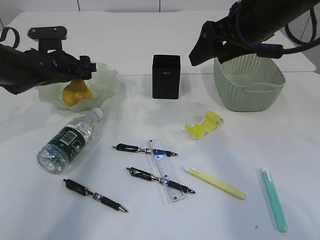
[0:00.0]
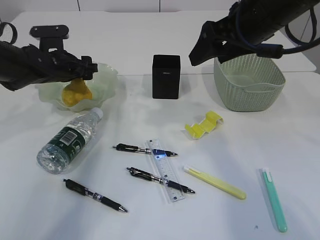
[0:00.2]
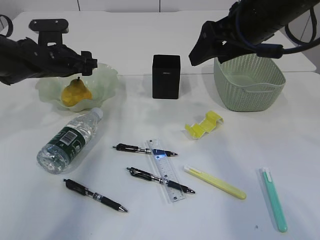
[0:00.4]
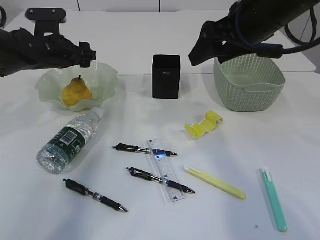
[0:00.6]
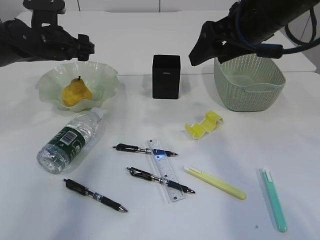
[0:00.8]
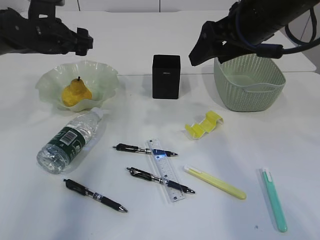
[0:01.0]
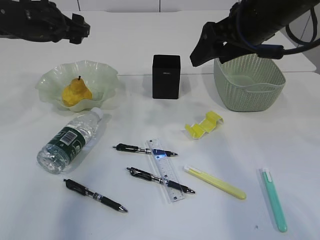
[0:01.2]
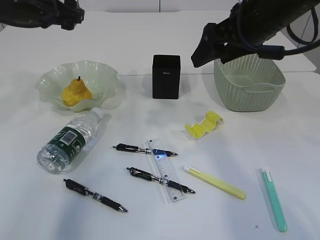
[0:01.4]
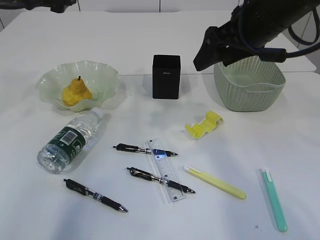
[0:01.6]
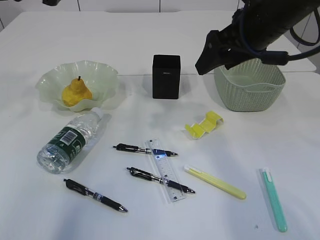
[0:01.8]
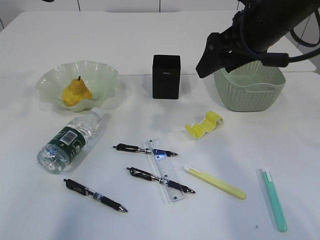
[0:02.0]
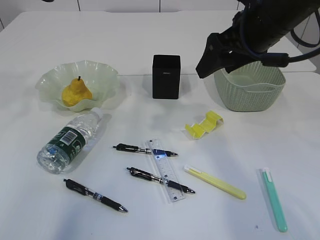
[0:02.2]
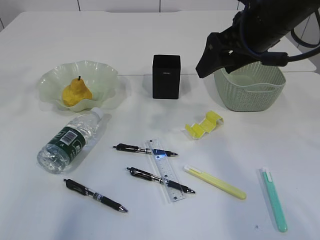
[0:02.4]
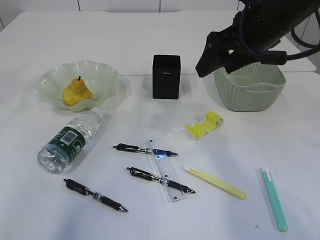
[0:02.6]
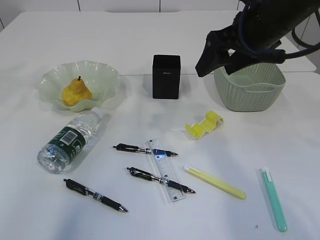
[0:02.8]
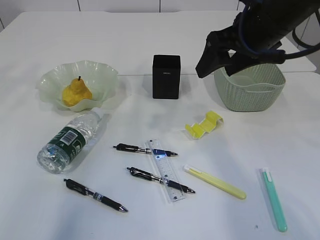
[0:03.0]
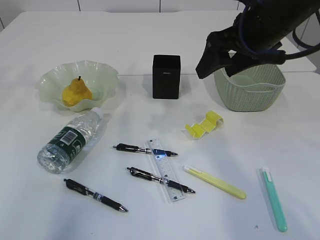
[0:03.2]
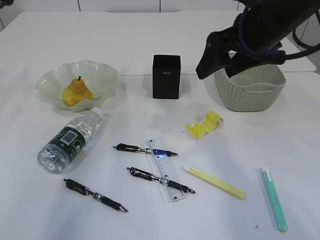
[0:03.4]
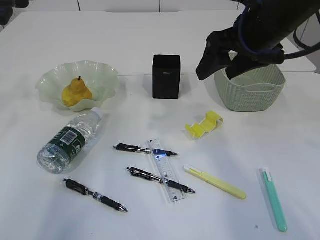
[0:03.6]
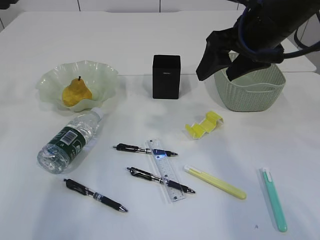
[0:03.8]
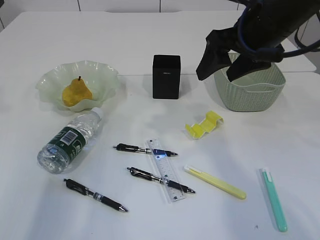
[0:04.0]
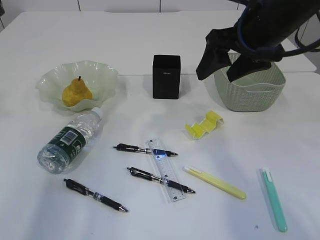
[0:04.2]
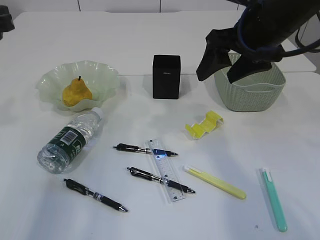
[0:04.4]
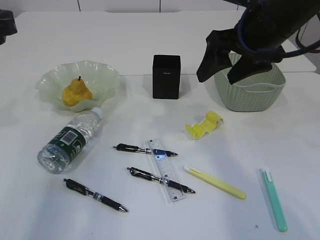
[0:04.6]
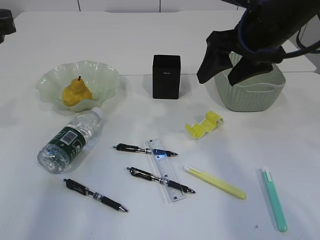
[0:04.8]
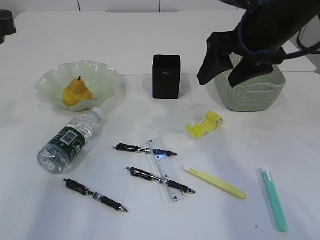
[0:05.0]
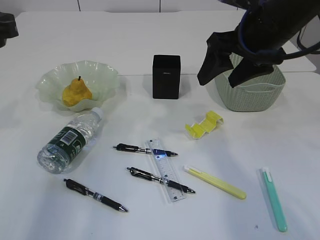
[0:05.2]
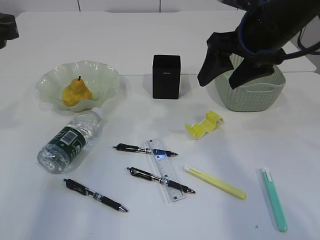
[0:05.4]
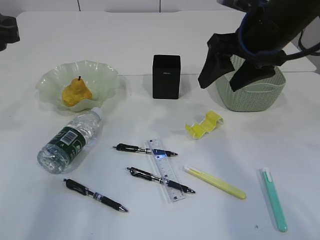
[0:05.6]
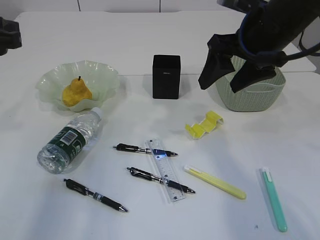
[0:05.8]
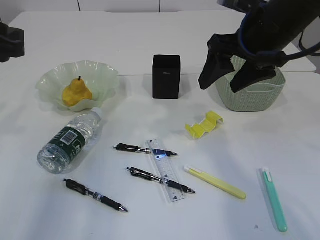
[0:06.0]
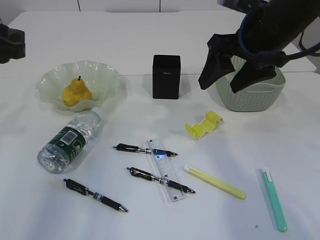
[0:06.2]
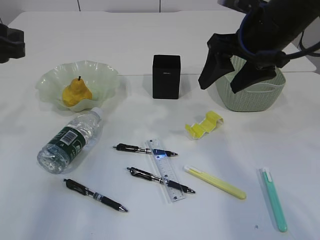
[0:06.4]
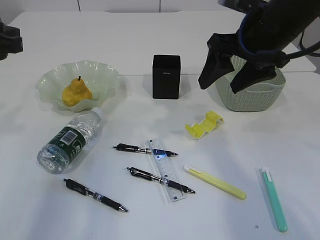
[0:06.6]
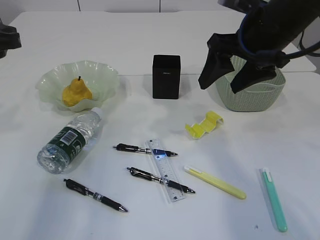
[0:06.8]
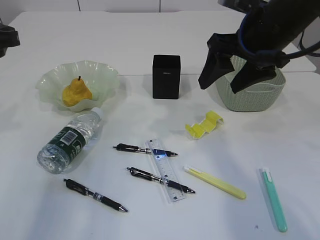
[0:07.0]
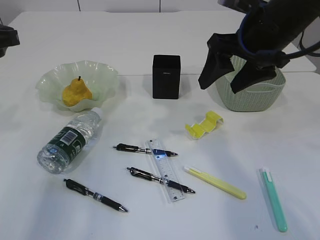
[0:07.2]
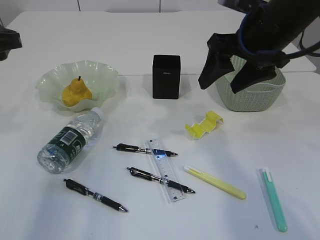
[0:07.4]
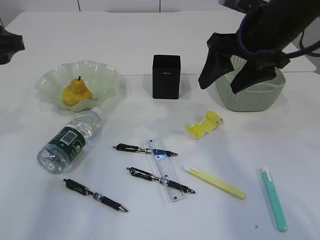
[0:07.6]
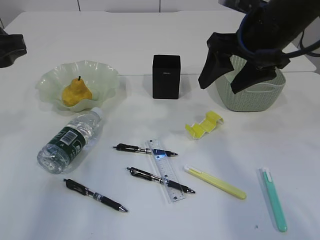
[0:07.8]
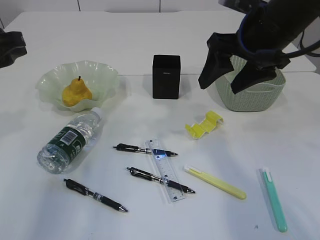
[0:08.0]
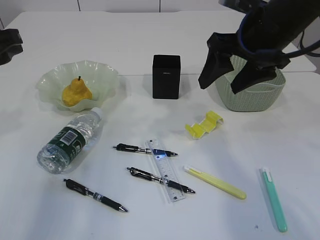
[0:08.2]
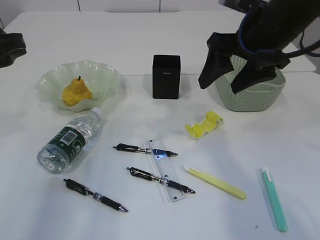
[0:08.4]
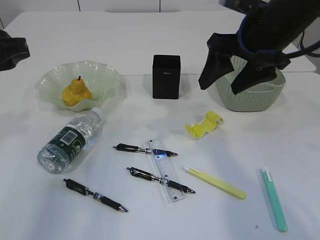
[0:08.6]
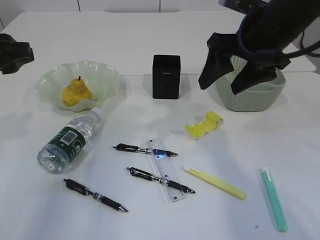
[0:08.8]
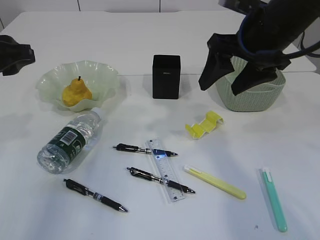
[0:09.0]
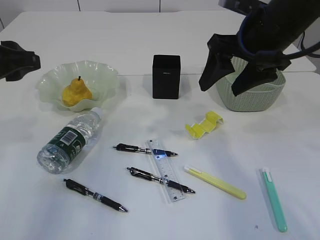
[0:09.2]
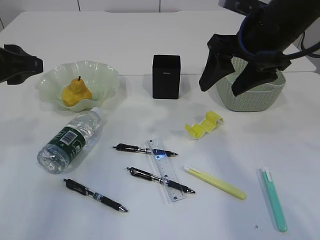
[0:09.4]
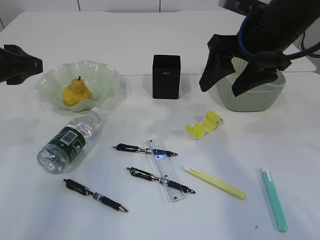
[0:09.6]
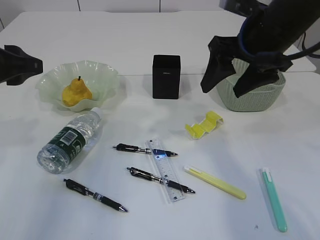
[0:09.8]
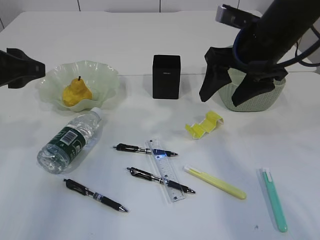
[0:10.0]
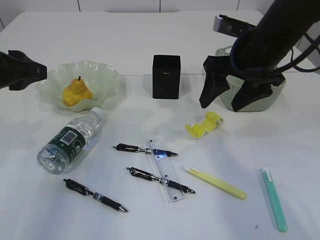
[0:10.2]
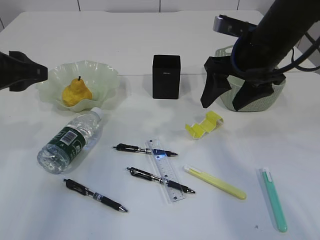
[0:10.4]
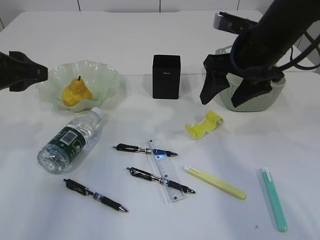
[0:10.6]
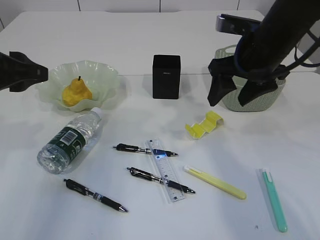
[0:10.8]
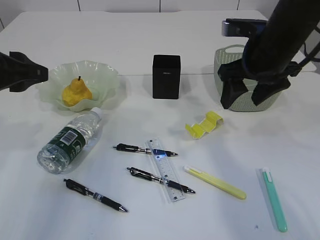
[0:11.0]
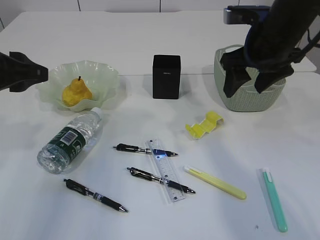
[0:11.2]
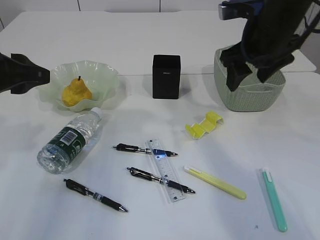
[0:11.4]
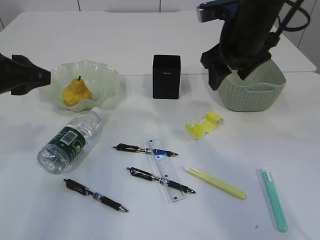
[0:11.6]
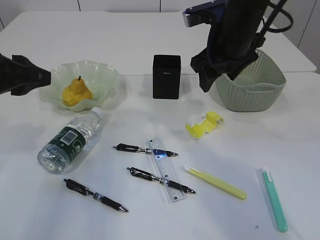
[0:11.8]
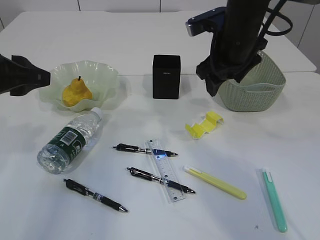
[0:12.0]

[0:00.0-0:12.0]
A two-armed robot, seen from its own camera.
0:00.0 to 0:01.6: The left gripper travels upward by roughly 20 cm.
0:01.6 to 0:03.0: The left gripper shifts by some 5 cm.
0:03.0 to 0:04.4: The left gripper is displaced backward and downward by roughly 10 cm.
0:04.4 to 0:07.6: The grippers move only a little.
0:07.6 to 0:10.4: The grippers move only a little.
0:10.4 to 0:12.0: The right gripper moves forward, approximately 5 cm.

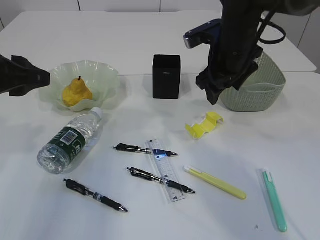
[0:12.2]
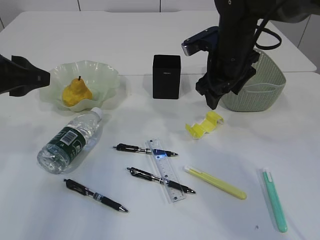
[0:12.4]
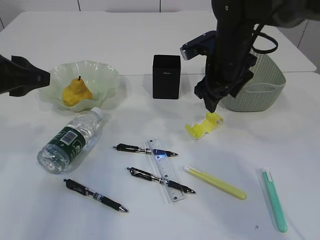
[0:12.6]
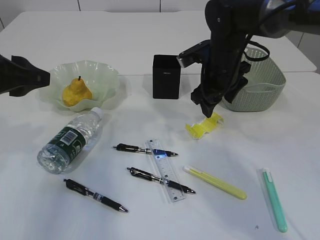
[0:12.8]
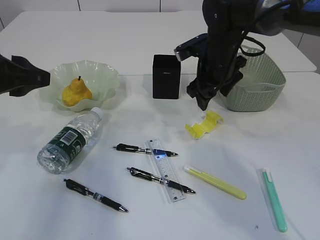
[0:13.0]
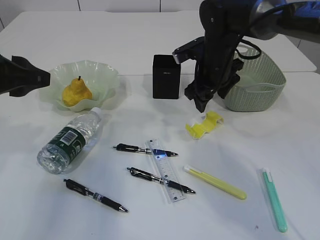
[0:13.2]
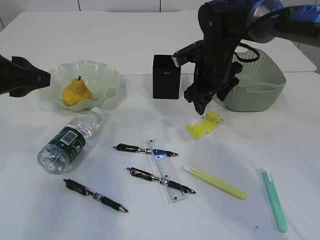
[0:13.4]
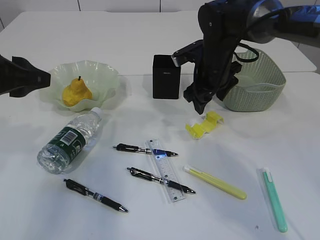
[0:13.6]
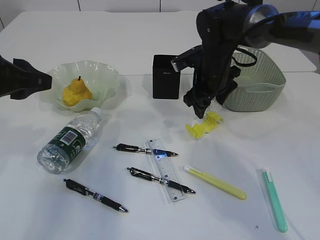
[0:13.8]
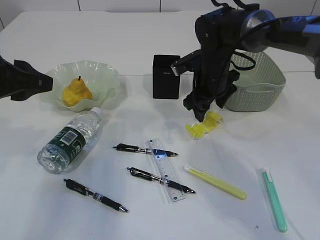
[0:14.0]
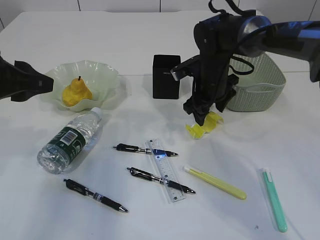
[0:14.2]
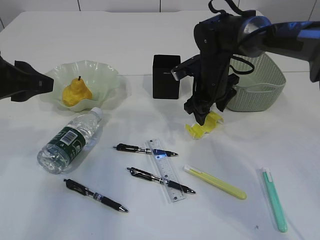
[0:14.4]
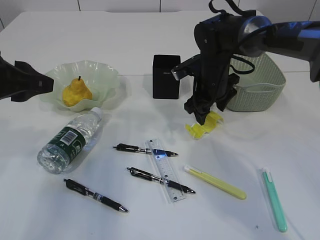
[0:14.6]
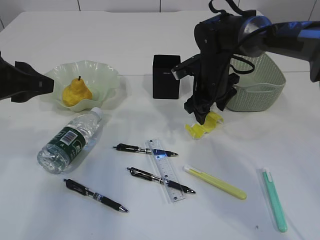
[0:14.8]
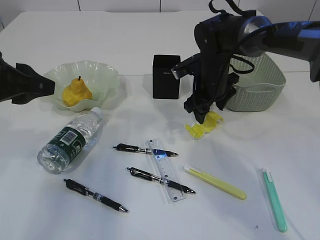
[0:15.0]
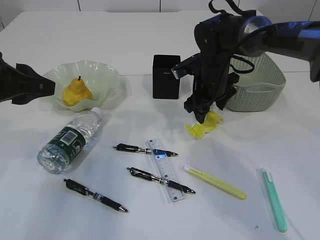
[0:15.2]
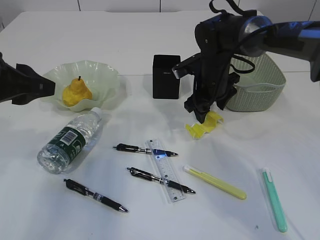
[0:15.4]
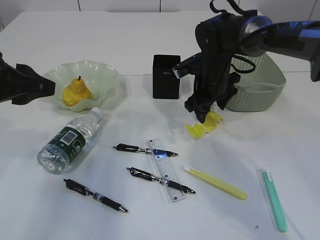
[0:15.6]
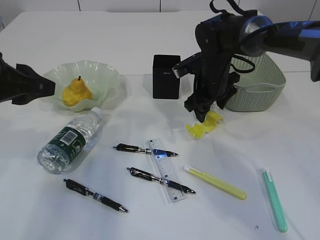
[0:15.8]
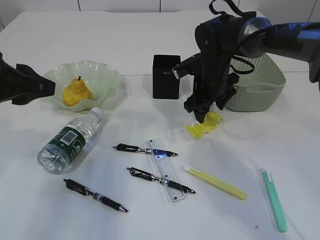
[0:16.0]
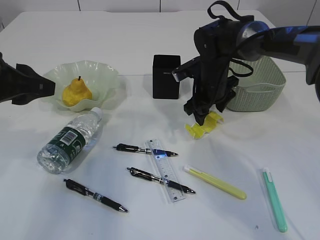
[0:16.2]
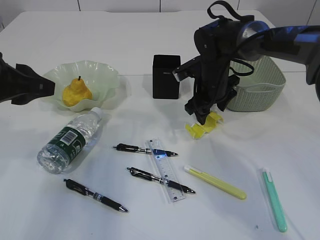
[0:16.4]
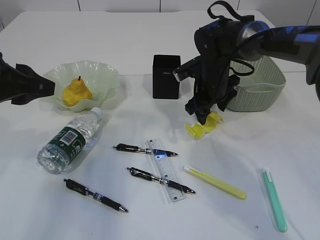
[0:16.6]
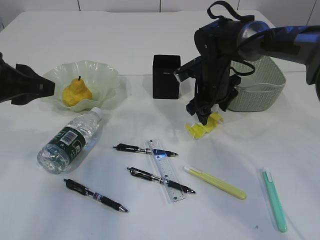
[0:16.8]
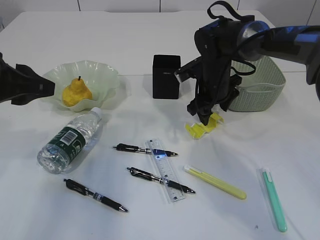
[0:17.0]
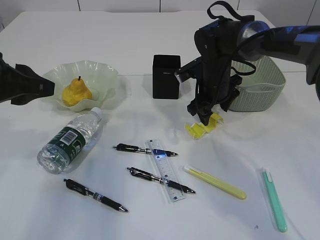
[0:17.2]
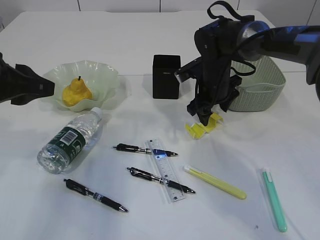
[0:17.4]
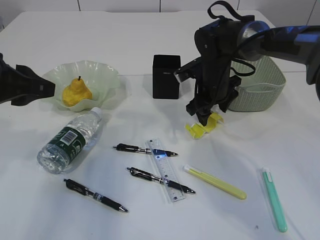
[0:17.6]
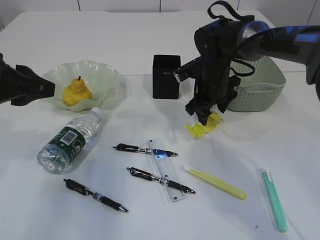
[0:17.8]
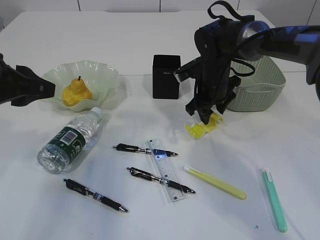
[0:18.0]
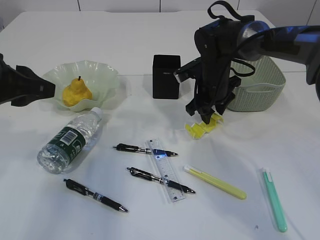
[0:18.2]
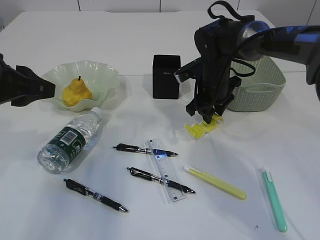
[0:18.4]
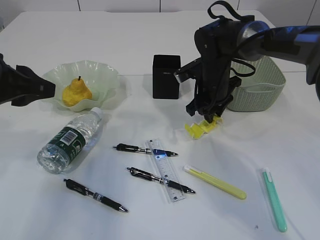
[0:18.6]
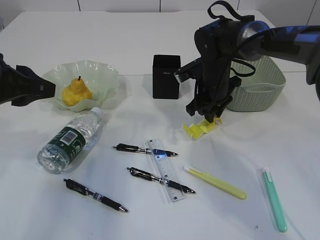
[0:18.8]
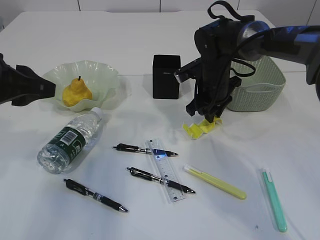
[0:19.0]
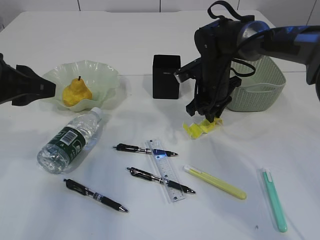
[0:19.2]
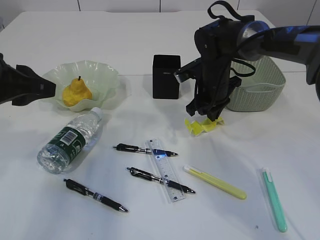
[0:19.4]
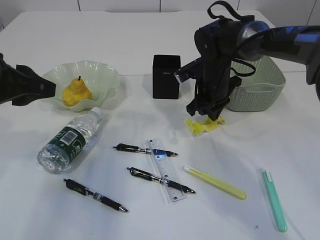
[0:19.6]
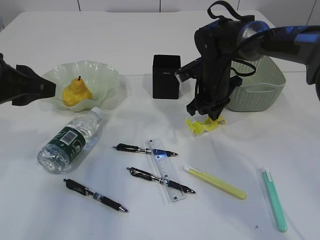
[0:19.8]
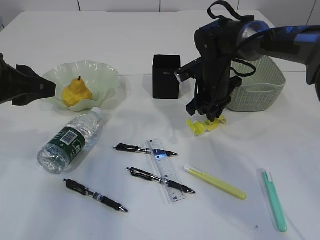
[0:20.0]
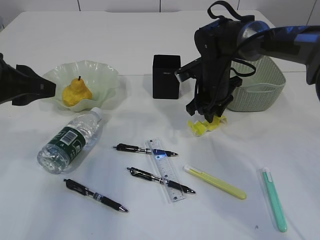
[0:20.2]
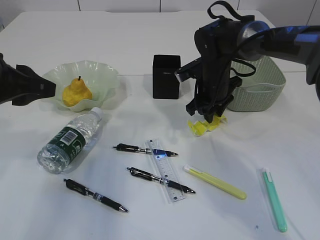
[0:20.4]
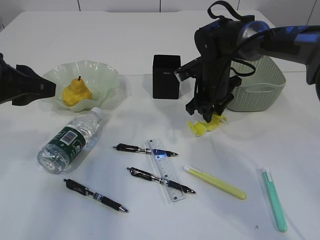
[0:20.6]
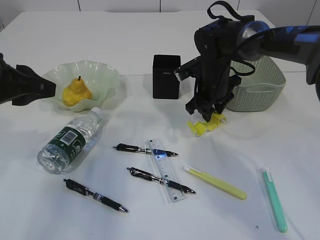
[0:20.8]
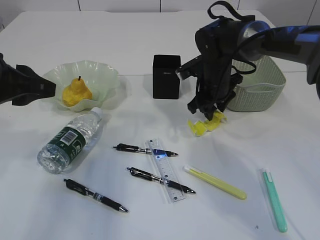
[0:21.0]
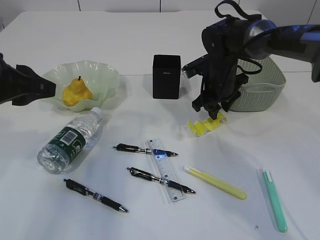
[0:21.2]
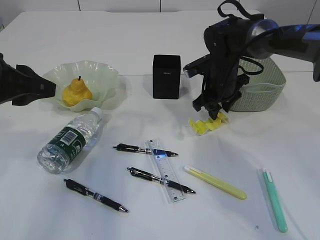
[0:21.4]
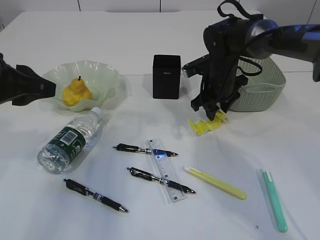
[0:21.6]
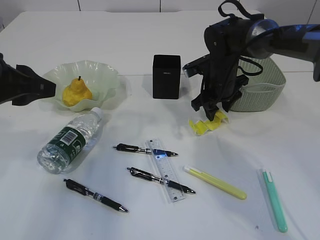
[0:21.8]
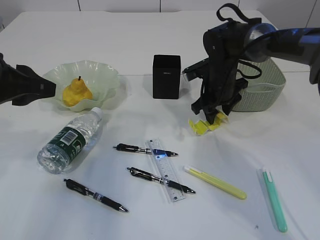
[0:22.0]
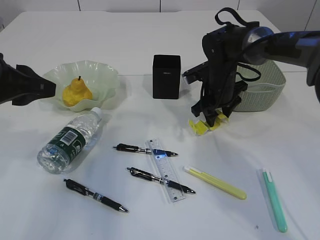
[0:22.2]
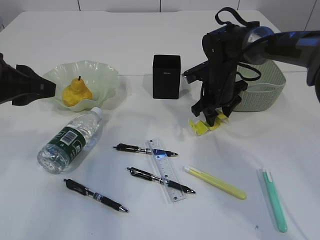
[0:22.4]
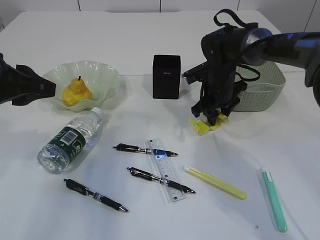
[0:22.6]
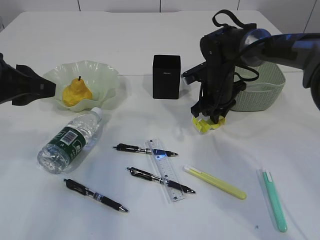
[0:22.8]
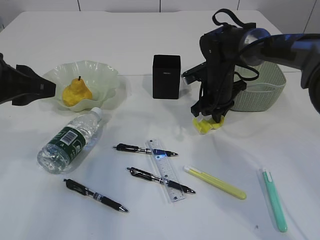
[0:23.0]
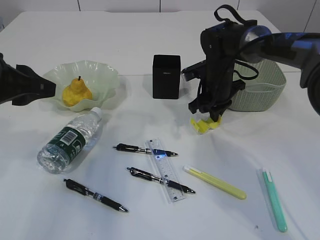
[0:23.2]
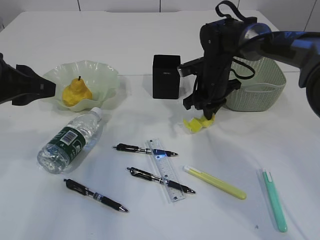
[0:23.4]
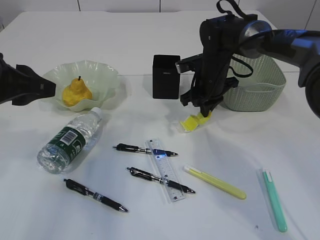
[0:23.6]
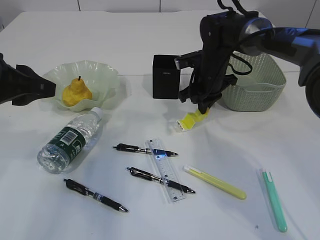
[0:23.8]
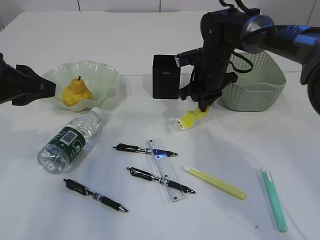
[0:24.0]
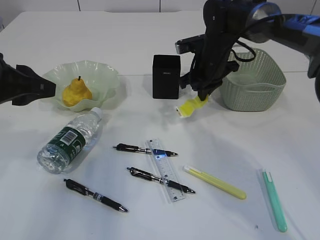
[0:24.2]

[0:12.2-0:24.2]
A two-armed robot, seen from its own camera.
0:12.2 to 0:13.8: The right gripper is displaced downward by about 5 cm.
0:13.8 to 0:15.2: There are only small adjustments of the grippers.
0:15.2 to 0:18.2: The two grippers keep their place.
0:18.2 to 0:19.8: The right gripper closes up.
0:19.8 to 0:21.2: The right gripper opens.
0:21.2 to 0:22.6: There are only small adjustments of the grippers.
0:22.6 to 0:24.2: The right gripper is displaced upward by approximately 5 cm, and closes its fingers.
